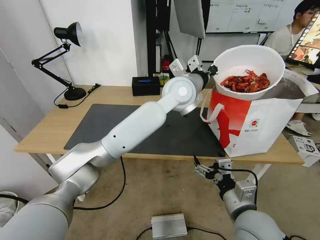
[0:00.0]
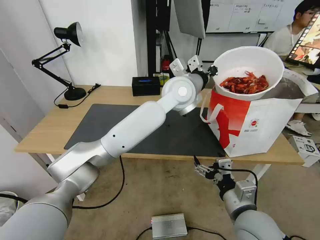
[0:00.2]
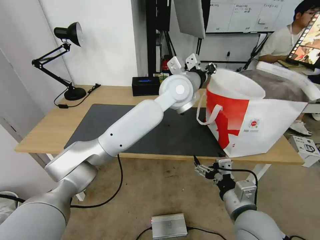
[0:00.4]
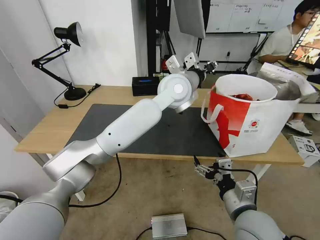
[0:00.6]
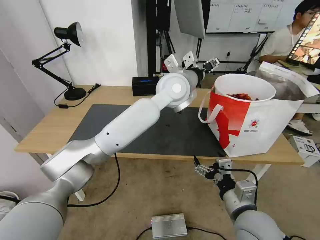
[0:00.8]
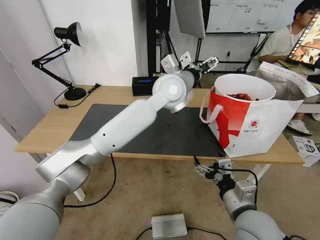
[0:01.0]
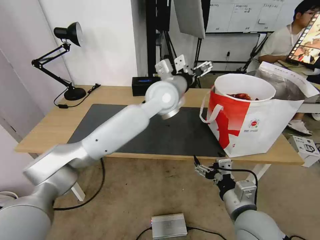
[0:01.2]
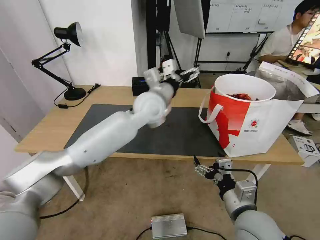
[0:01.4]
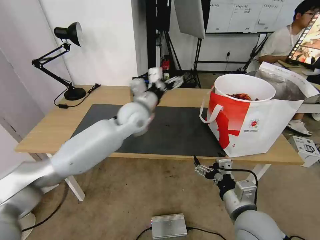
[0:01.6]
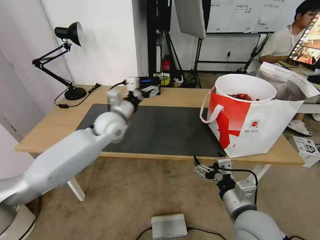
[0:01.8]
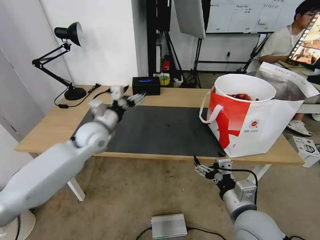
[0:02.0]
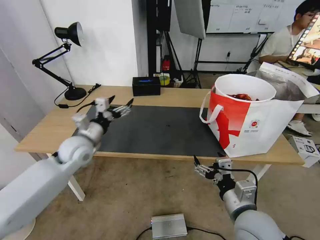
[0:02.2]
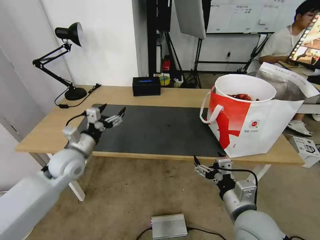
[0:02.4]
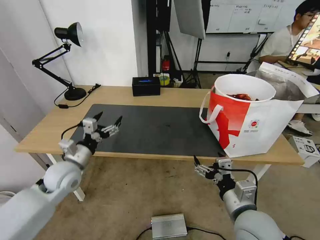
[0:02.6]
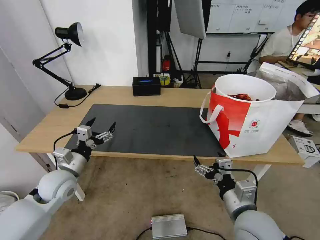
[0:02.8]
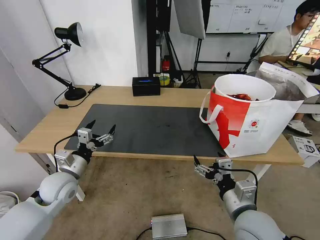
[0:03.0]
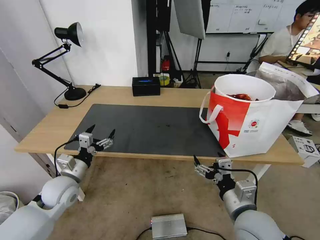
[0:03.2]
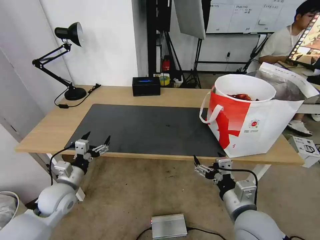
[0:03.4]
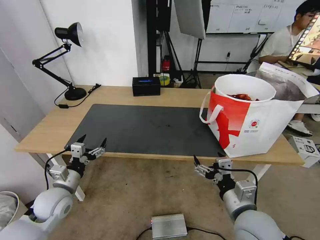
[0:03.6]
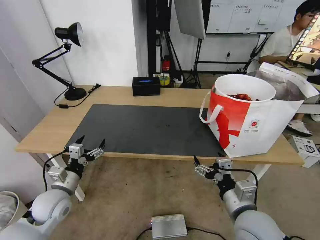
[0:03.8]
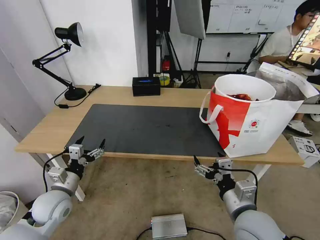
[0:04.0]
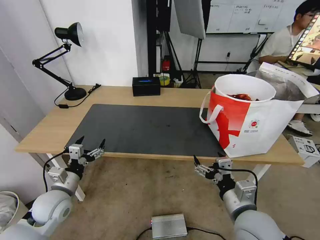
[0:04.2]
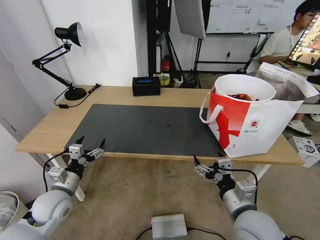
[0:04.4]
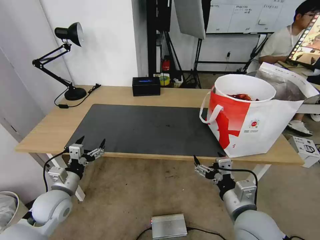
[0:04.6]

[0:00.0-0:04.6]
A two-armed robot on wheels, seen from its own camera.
Task of the whole recording: Pick up the trash from the table and place it into the takeout bag.
0:00.0 to 0:01.6: The left gripper goes some 20 cm to the left and downward, and opens its fingers.
0:01.6 to 0:03.0: The left gripper goes about 30 cm to the left, backward and downward.
0:03.0 to 0:04.6: The left gripper changes place by about 5 cm.

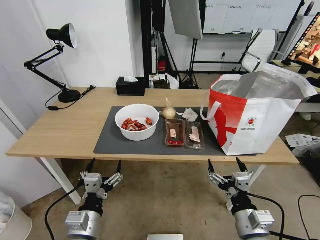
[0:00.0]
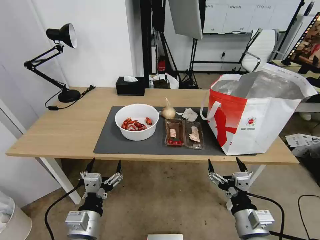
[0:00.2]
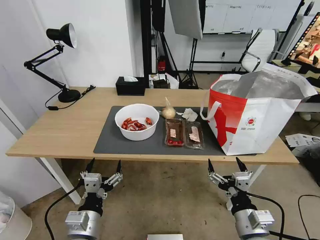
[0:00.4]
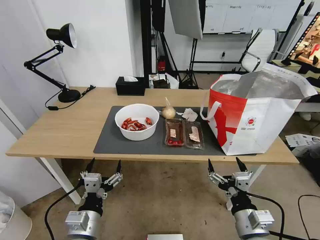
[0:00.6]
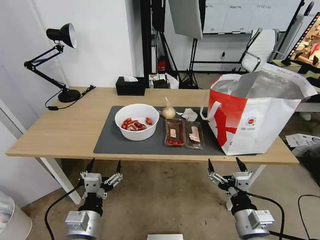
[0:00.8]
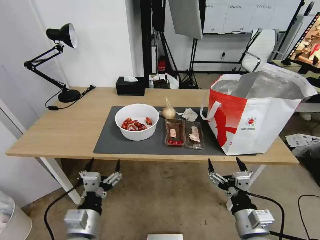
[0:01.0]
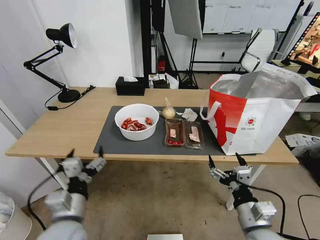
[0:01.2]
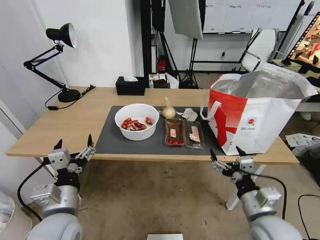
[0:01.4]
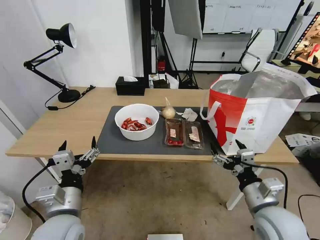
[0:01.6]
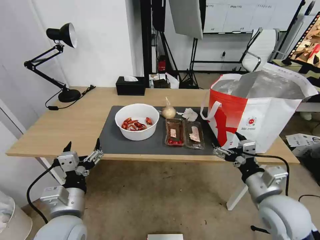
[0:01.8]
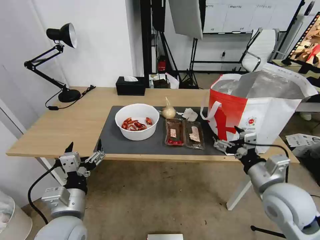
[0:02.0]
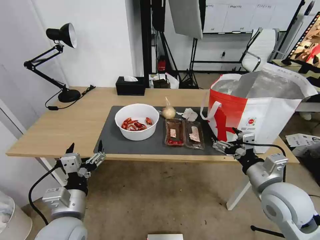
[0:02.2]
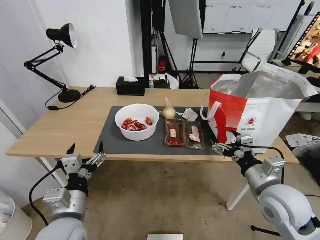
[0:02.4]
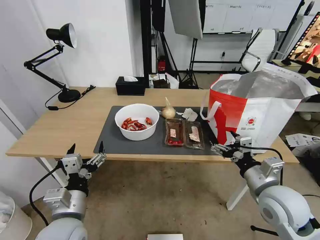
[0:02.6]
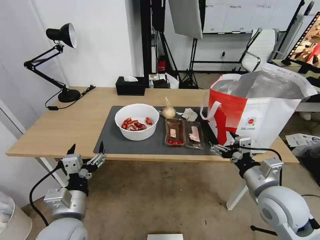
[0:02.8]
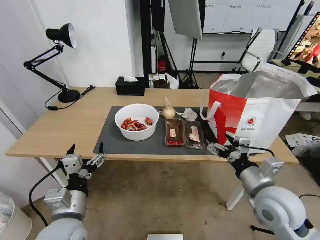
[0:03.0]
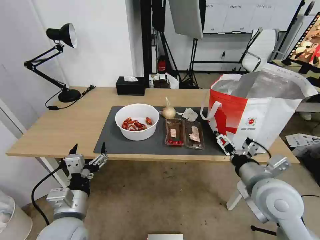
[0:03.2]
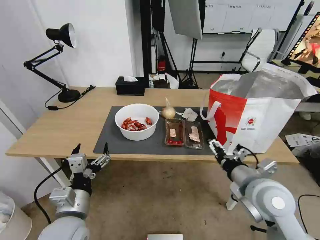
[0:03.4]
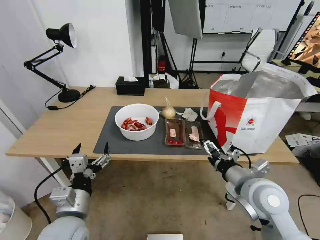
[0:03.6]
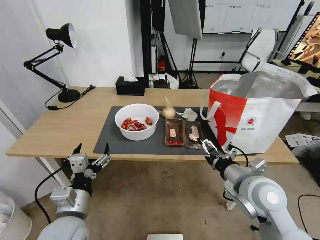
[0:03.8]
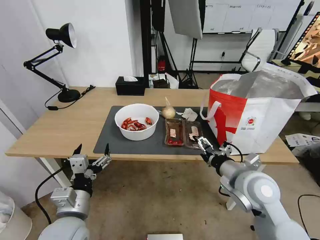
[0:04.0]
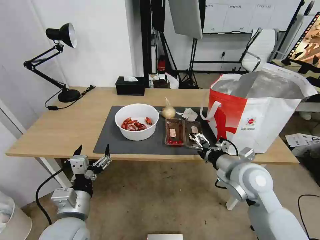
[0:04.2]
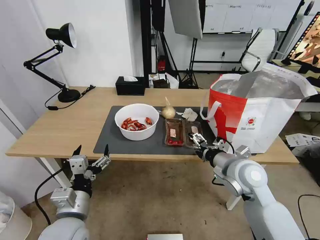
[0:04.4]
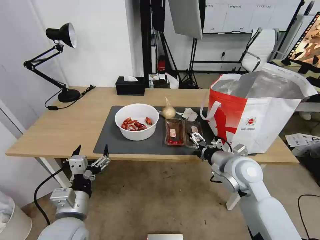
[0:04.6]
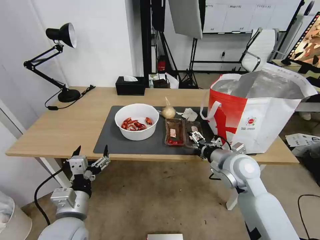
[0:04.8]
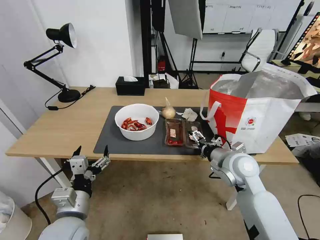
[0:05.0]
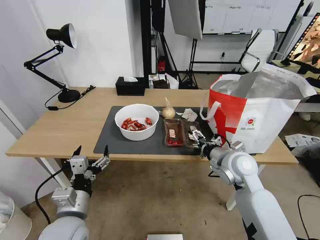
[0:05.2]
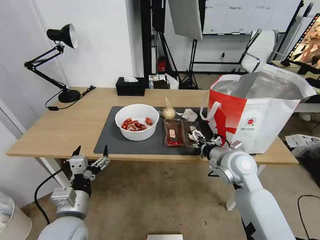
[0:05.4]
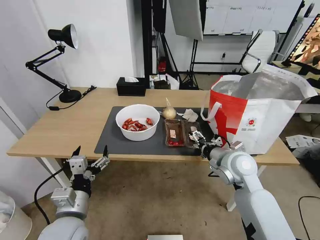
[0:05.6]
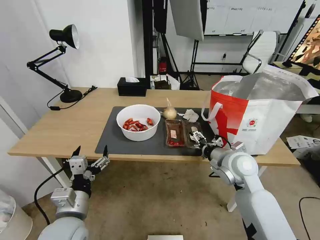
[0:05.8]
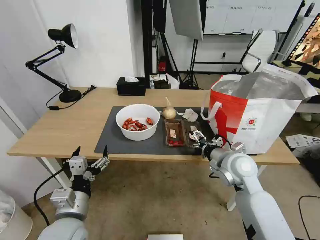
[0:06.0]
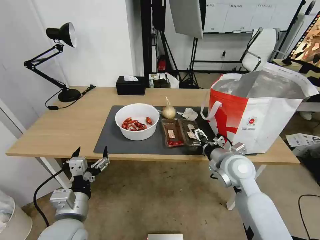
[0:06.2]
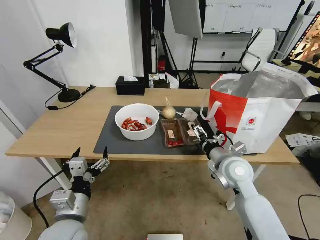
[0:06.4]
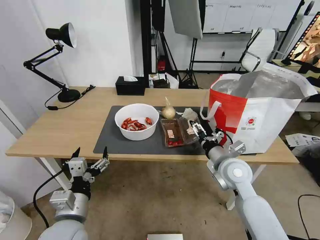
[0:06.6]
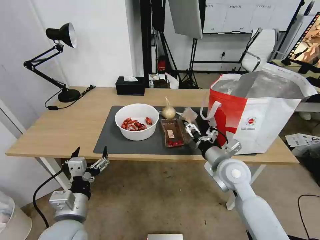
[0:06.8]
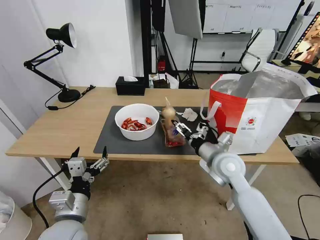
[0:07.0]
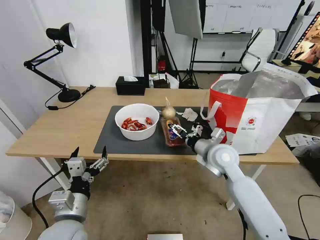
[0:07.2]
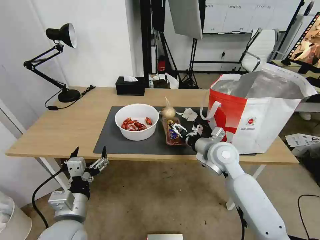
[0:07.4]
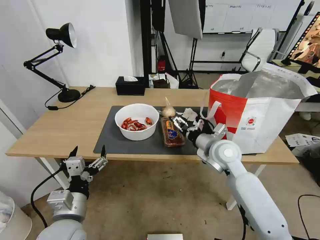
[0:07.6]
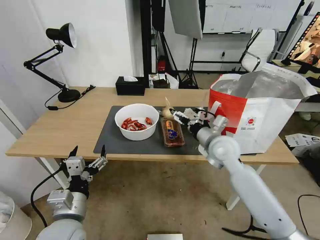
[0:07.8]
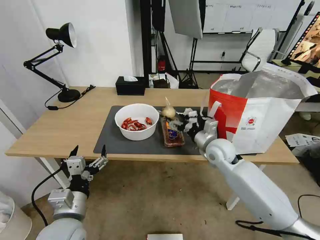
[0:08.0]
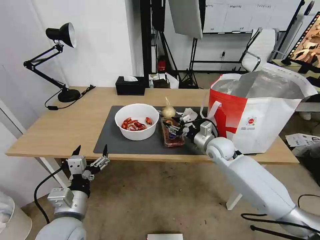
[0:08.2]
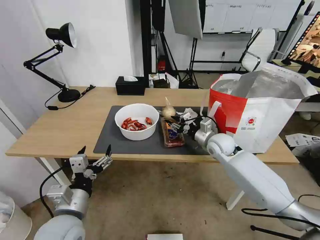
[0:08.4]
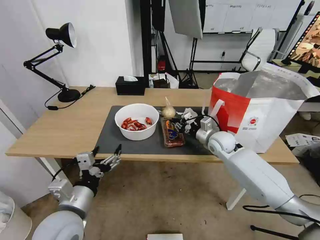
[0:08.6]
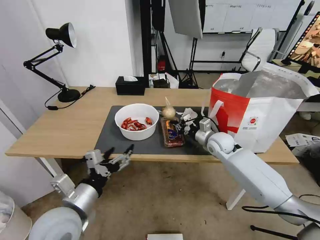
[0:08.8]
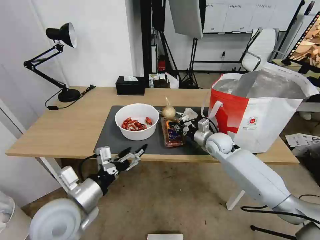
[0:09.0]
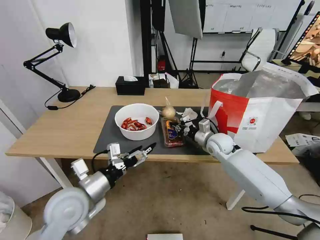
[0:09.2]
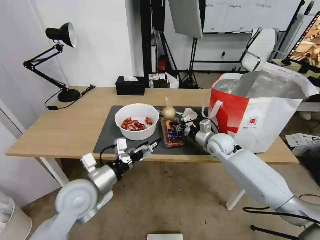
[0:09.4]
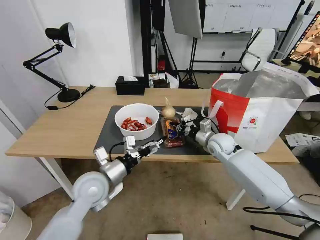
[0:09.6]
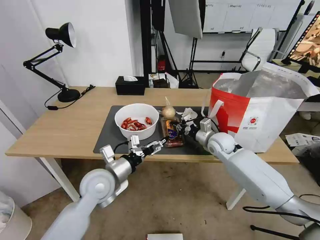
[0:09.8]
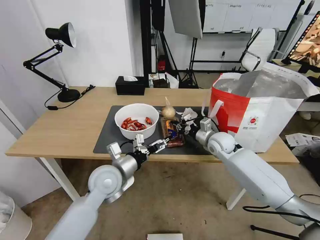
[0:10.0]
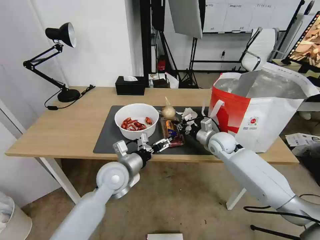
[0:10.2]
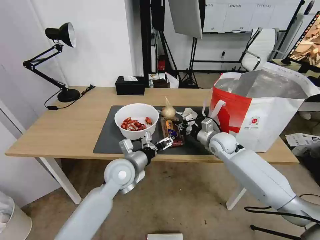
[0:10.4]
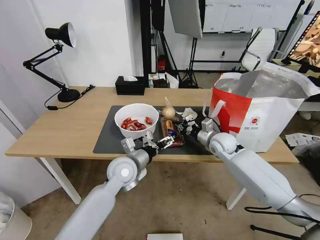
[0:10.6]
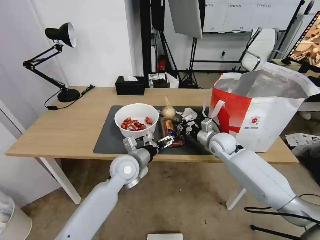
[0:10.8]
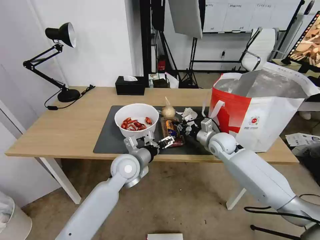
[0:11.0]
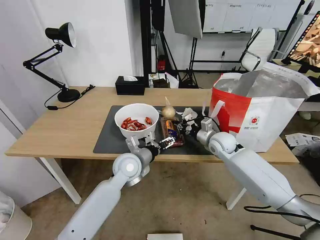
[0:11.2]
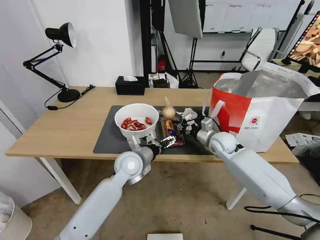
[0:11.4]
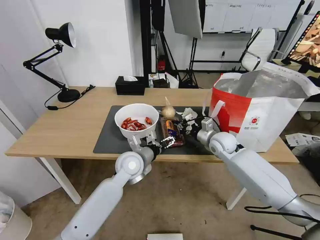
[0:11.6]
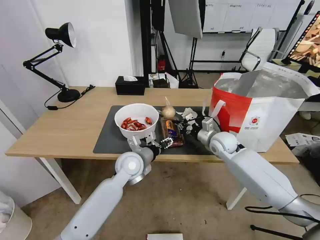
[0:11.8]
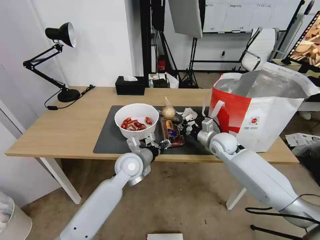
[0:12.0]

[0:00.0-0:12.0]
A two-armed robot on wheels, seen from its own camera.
Task of the whole recording: Pick up the trash from the table and place it into the takeout bag.
0:01.6 to 0:03.0: The right gripper ends up roughly 5 cm from where it was.
0:03.0 to 0:04.4: The right gripper travels forward by roughly 10 cm.
0:04.4 to 0:06.0: The grippers stay close to where they were, moving slightly.
0:06.0 to 0:07.6: The right gripper shifts by about 5 cm.
0:07.6 to 0:09.0: The right gripper travels forward and downward by about 10 cm, and closes. The left gripper changes place by roughly 5 cm.
0:09.0 to 0:10.4: The left gripper heads forward and to the right, covering some 20 cm.
0:10.4 to 0:12.0: The left gripper closes up.

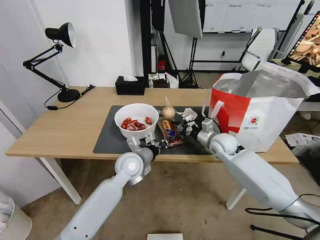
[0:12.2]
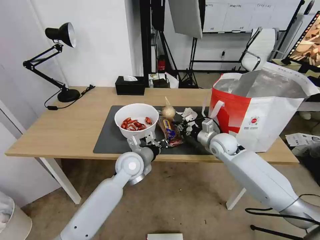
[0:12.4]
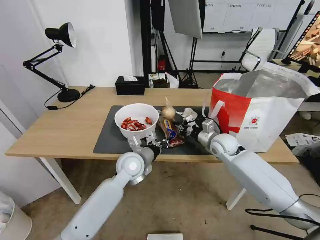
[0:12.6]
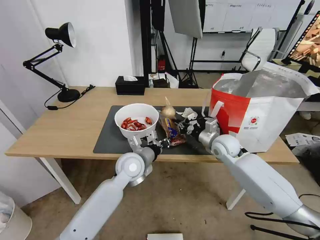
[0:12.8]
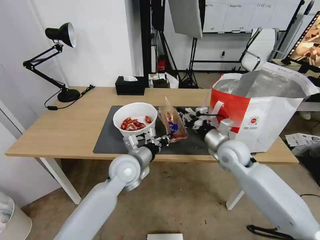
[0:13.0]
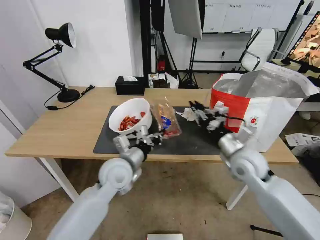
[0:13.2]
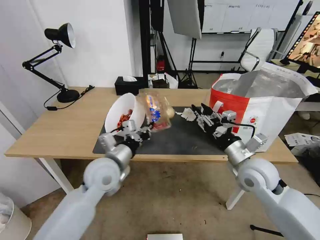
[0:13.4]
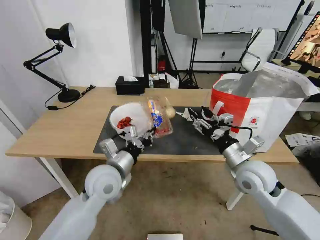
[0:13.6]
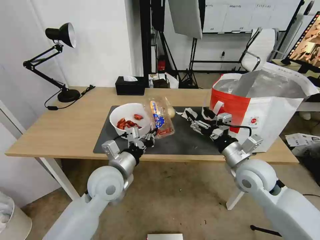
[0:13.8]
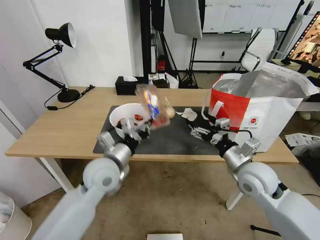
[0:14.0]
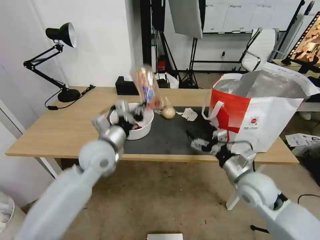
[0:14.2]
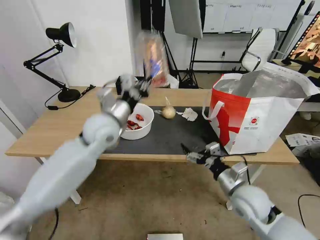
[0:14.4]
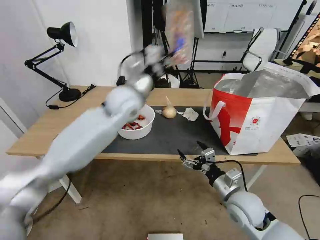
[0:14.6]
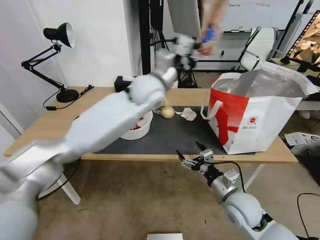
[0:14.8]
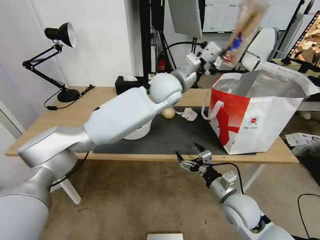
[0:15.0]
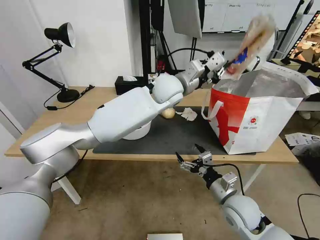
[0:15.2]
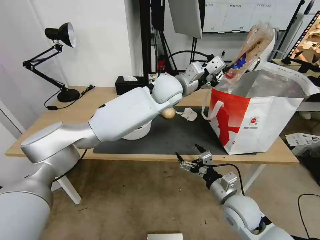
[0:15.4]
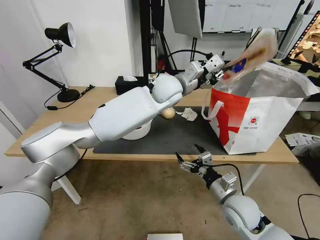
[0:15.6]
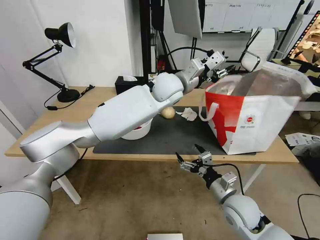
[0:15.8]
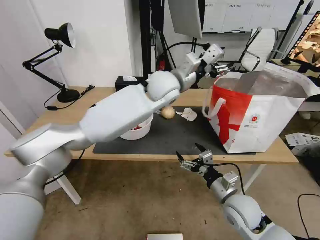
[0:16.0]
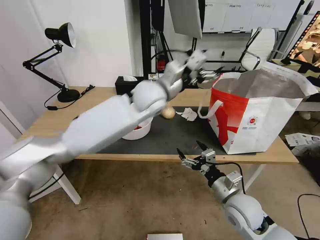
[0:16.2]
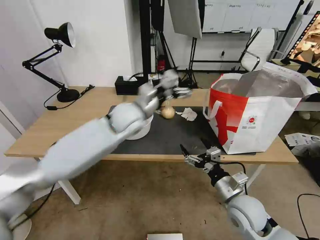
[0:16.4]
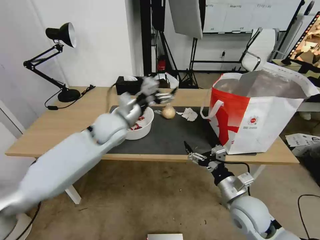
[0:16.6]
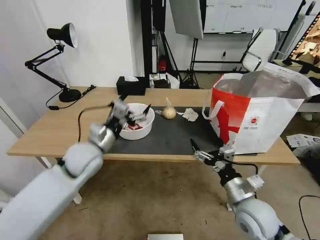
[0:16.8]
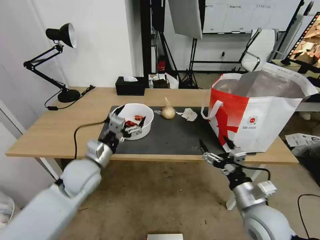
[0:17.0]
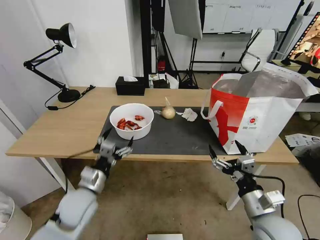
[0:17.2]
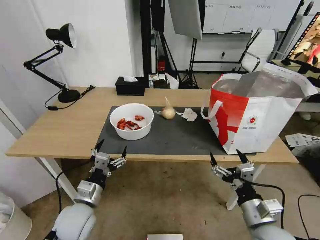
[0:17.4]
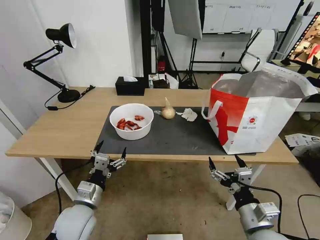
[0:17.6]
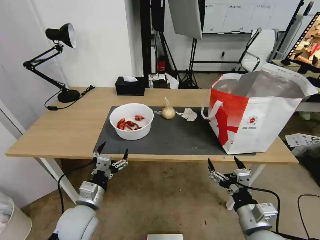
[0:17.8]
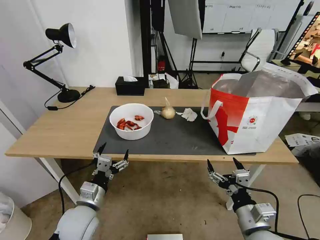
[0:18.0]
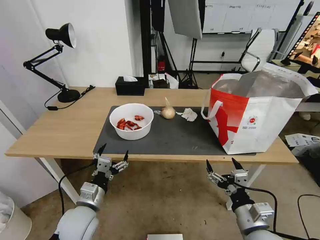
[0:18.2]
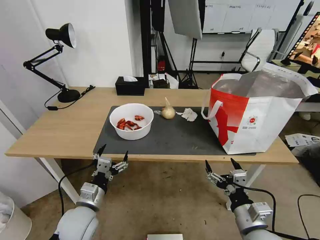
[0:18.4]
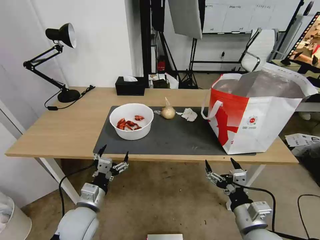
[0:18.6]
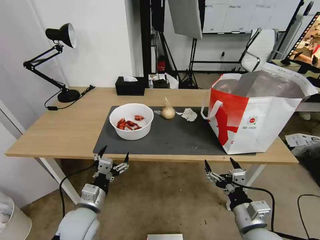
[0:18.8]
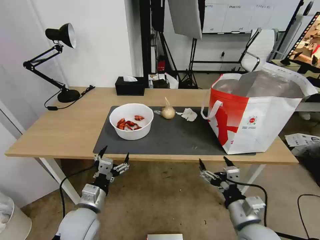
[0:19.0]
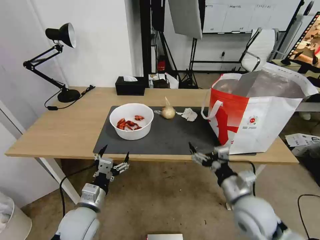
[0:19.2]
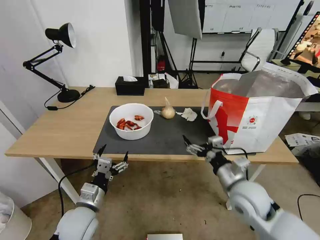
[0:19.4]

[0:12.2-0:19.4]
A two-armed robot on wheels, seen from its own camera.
Task of the whole recording: Pick up the trash from the table and place it into the takeout bag.
0:12.2 to 0:13.6: The left gripper heads backward and to the left, covering approximately 10 cm, while the right gripper travels backward by about 15 cm, and opens.
0:13.6 to 0:15.0: The left gripper shifts roughly 30 cm forward, to the right and upward. Meanwhile the right gripper is displaced downward and backward by roughly 10 cm.
0:15.0 to 0:16.6: The left gripper moves to the left, downward and backward, roughly 25 cm, and opens up.
0:16.6 to 0:18.0: The left gripper heads backward and downward, covering approximately 25 cm; the right gripper shifts about 10 cm backward.
0:18.0 to 0:19.4: The right gripper moves forward, some 10 cm.
